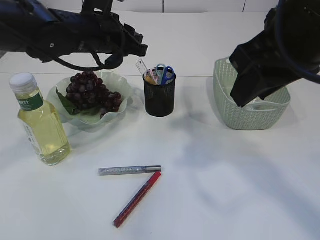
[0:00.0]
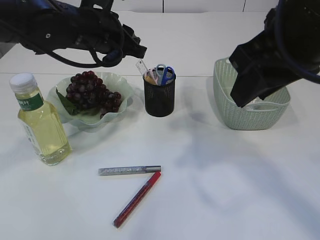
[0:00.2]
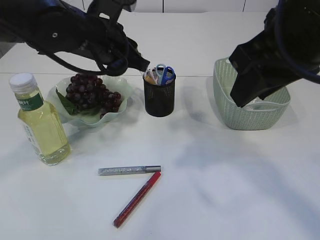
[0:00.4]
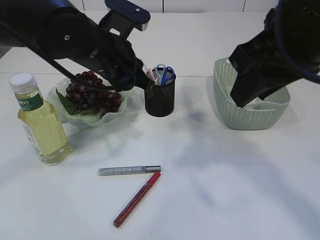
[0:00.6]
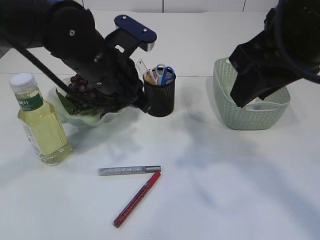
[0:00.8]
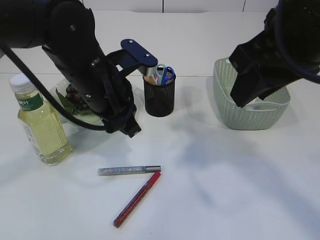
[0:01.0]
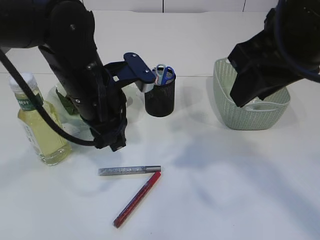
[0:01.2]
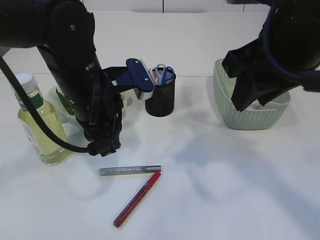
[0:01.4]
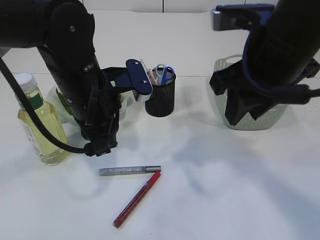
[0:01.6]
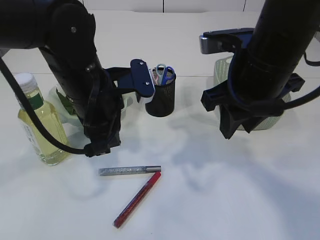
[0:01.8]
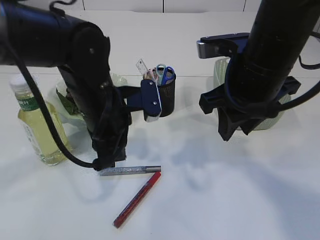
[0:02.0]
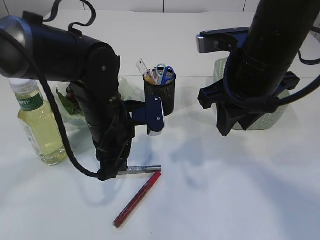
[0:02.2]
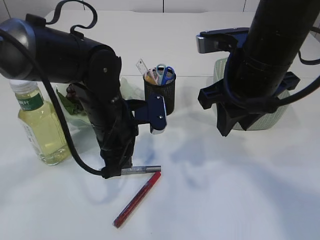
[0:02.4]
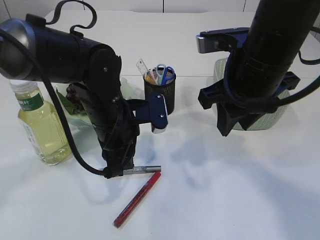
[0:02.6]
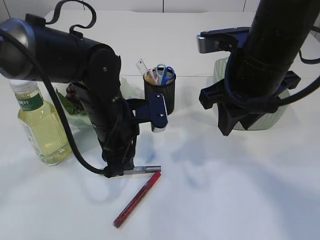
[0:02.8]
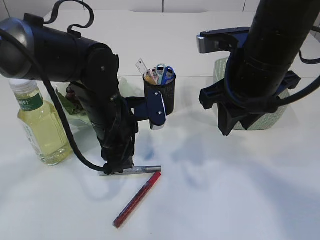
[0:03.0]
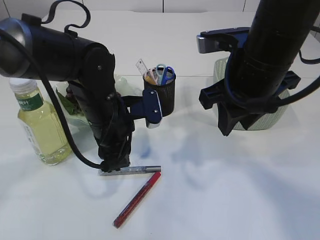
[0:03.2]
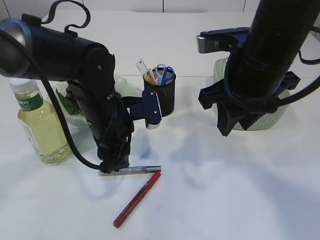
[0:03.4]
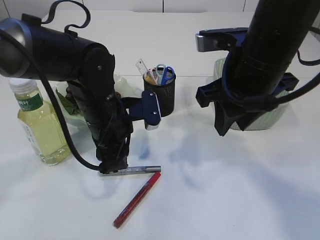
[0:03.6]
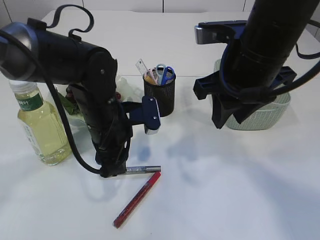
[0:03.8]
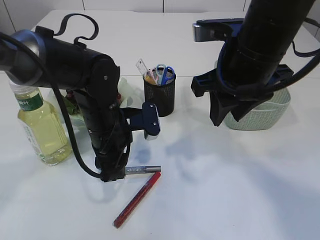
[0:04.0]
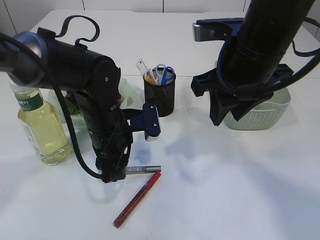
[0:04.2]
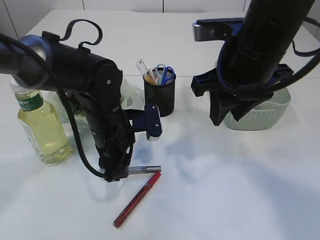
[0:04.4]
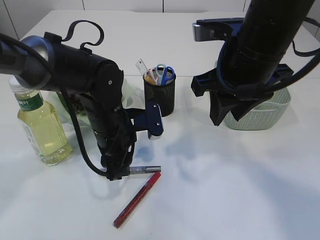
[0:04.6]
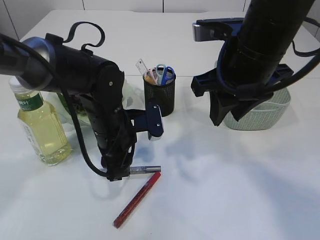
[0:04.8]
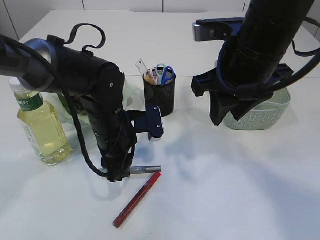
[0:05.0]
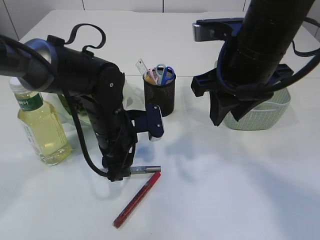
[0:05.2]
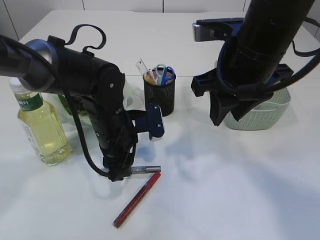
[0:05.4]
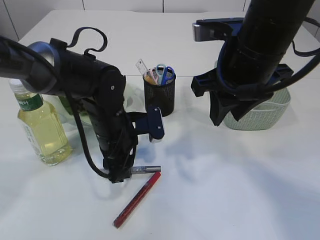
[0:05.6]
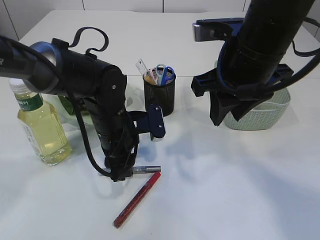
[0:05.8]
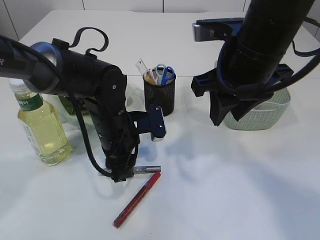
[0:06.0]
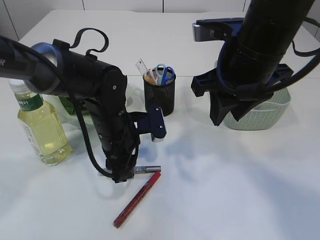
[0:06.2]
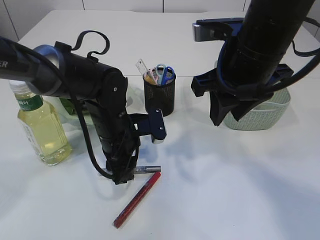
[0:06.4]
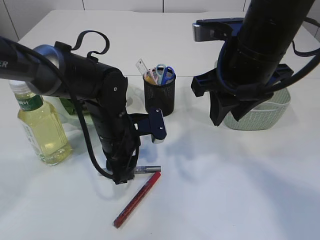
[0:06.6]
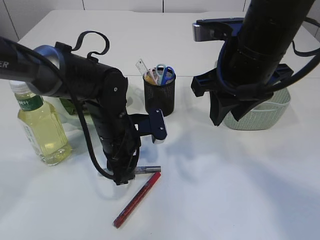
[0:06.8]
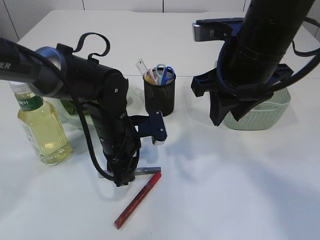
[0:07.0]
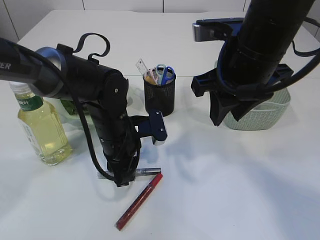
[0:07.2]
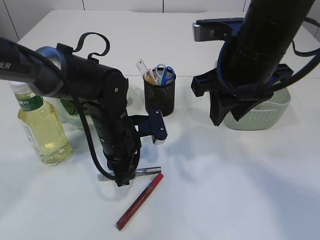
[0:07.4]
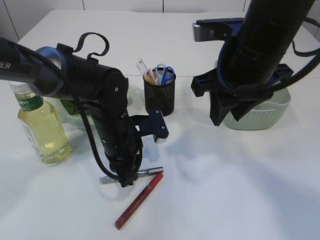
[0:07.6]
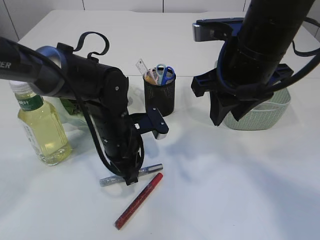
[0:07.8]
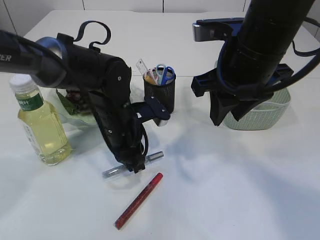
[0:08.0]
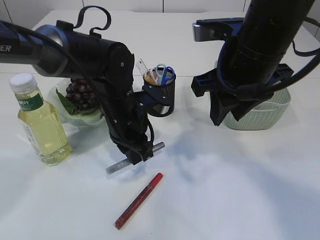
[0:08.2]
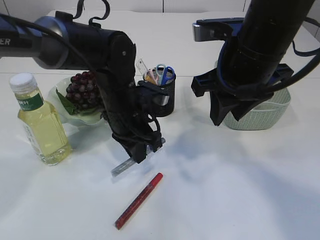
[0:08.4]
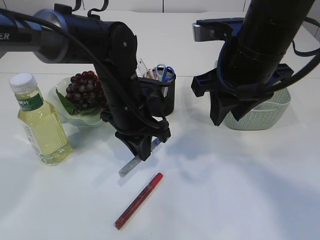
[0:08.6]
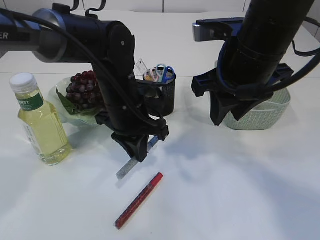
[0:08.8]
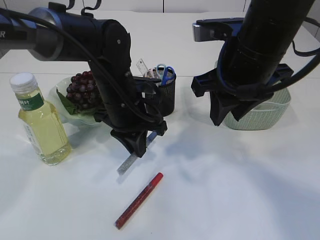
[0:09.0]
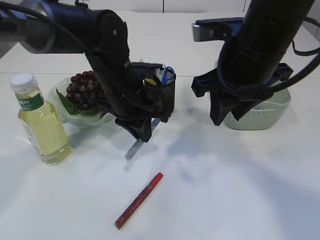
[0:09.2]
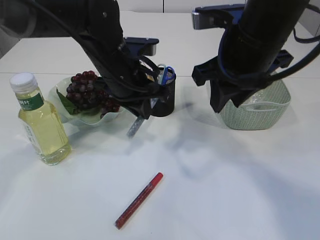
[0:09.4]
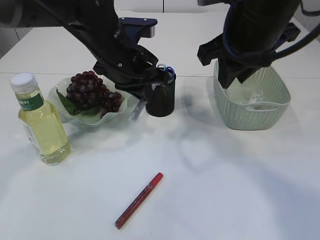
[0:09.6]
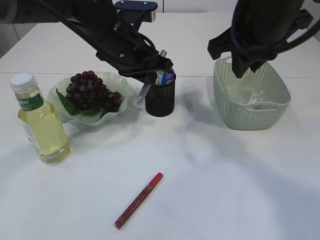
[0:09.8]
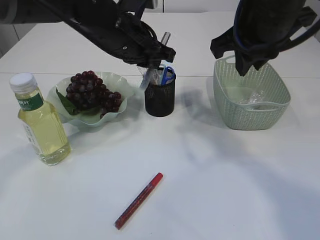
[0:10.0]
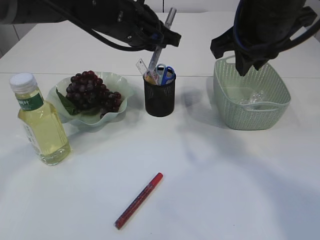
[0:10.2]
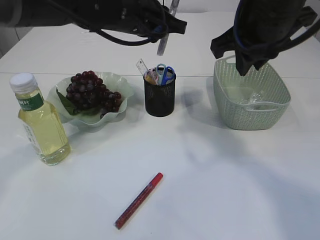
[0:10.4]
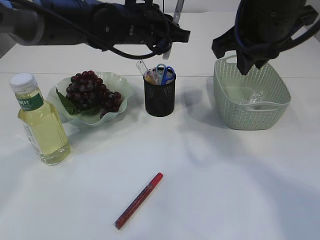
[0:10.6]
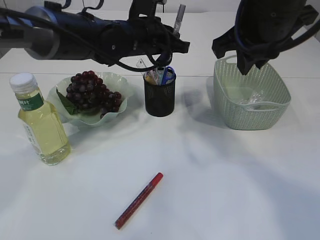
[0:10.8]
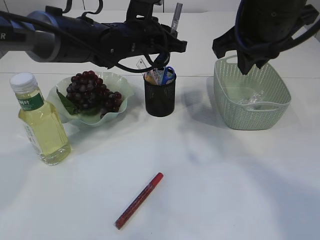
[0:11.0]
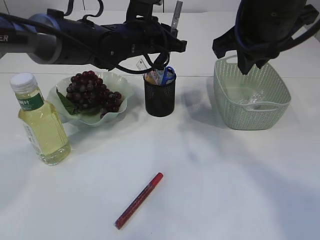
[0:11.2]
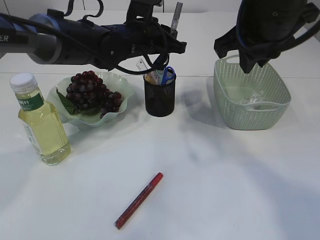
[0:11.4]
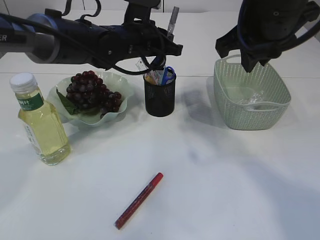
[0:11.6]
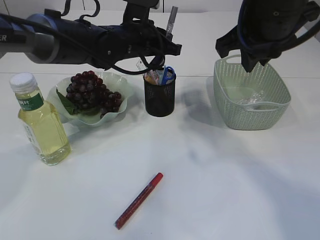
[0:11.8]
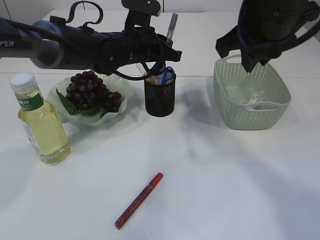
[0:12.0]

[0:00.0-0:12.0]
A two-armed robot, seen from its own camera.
Step, 0:00.4 to 0:09.4: pick up the silver glue.
0:00.0 to 0:01.6: The left gripper moves backward, about 10 cm.
0:01.6 to 0:03.0: The left gripper shifts about 5 cm downward.
0:03.0 to 0:06.0: The grippers move only a little.
0:06.0 to 0:07.6: The left gripper closes its fingers.
0:07.6 to 0:09.0: The left gripper goes about 5 cm upward.
0:09.0 to 0:10.4: The right gripper moves approximately 5 cm. The left gripper is displaced upward and forward by about 15 cm.
0:10.4 to 0:12.0: The left gripper moves downward, some 5 cm.

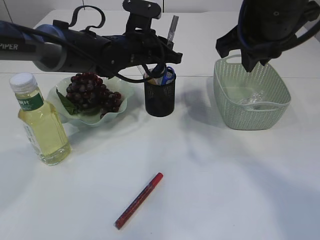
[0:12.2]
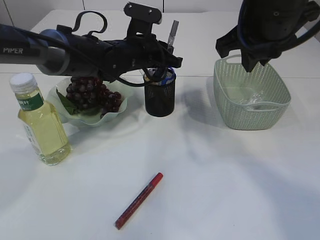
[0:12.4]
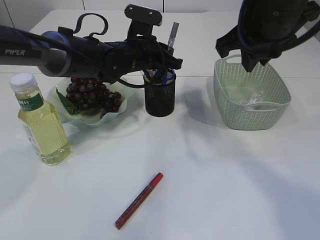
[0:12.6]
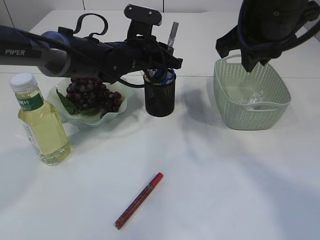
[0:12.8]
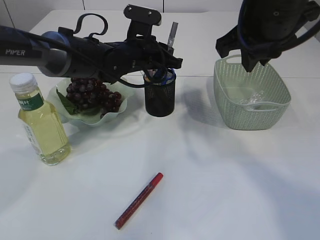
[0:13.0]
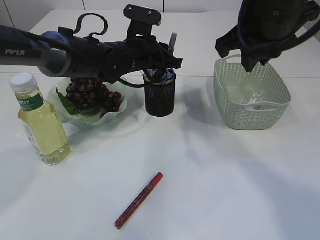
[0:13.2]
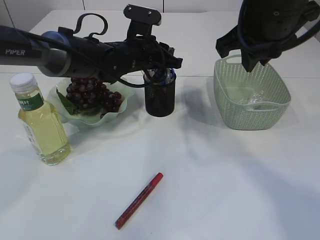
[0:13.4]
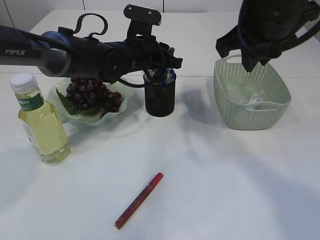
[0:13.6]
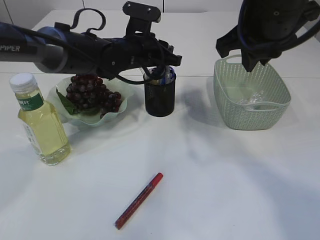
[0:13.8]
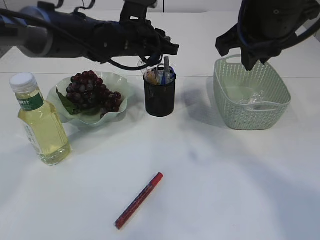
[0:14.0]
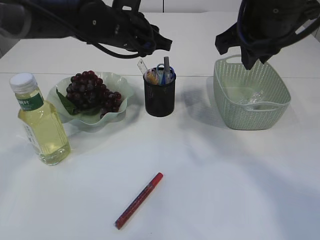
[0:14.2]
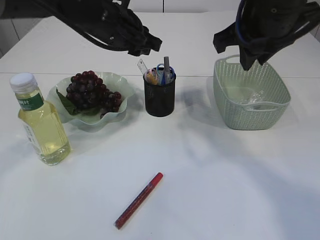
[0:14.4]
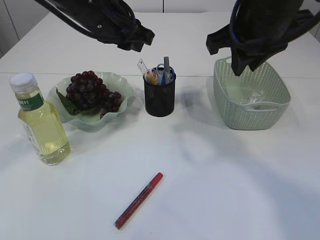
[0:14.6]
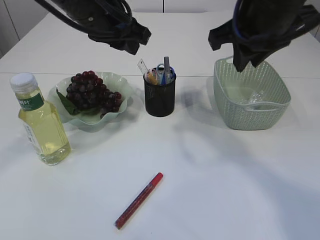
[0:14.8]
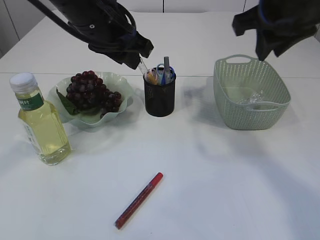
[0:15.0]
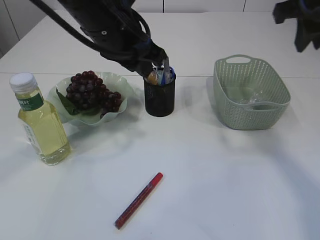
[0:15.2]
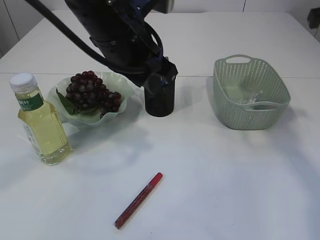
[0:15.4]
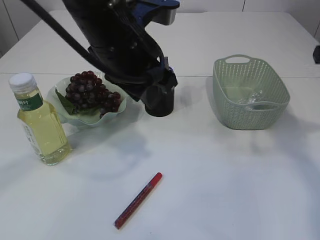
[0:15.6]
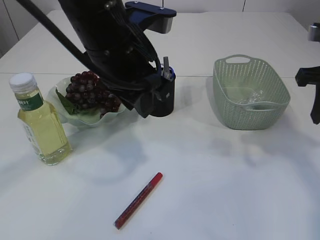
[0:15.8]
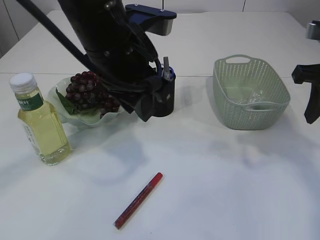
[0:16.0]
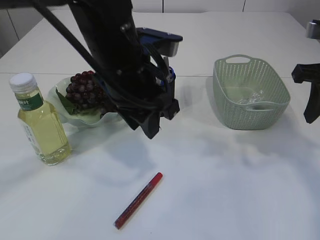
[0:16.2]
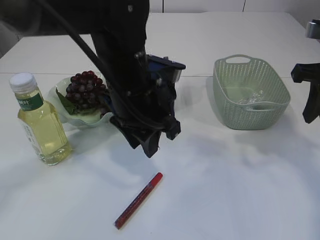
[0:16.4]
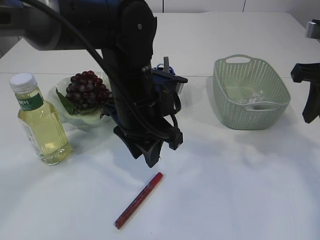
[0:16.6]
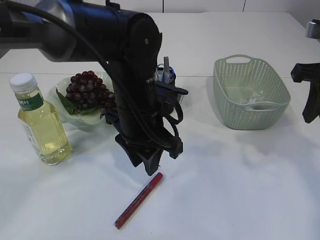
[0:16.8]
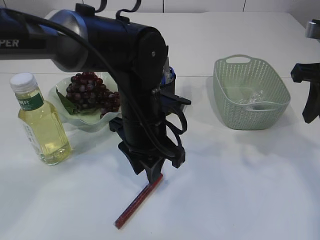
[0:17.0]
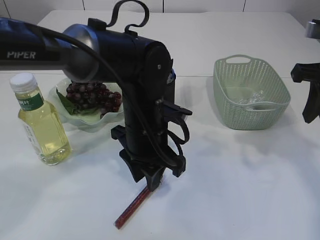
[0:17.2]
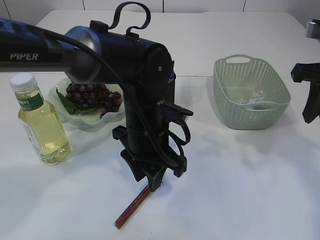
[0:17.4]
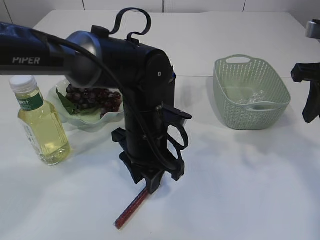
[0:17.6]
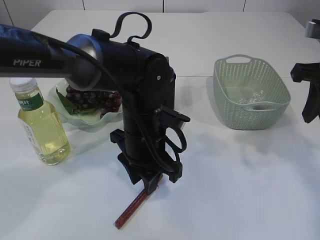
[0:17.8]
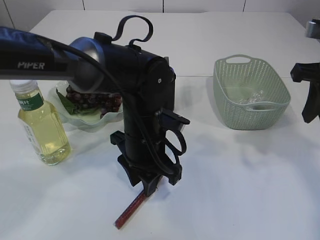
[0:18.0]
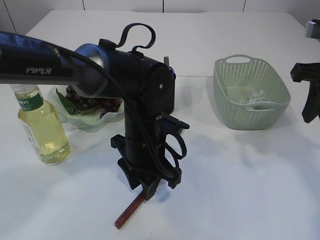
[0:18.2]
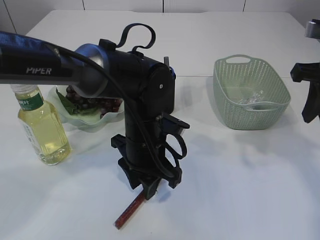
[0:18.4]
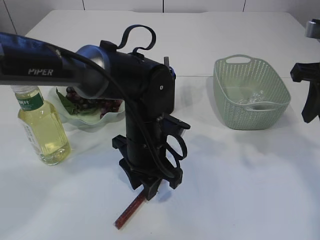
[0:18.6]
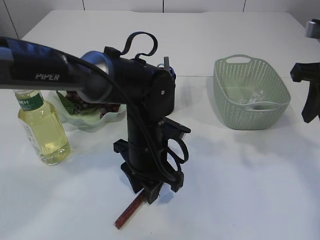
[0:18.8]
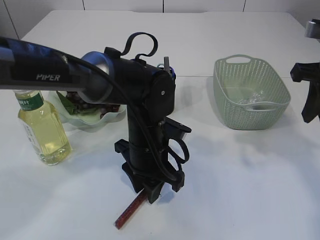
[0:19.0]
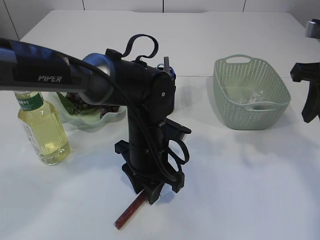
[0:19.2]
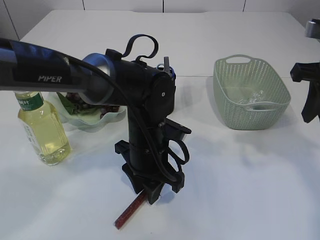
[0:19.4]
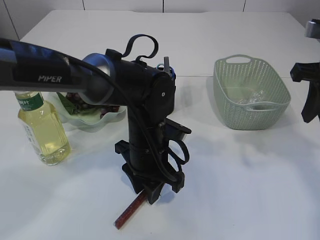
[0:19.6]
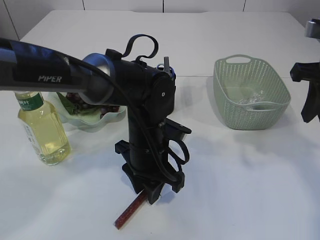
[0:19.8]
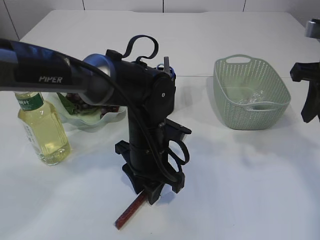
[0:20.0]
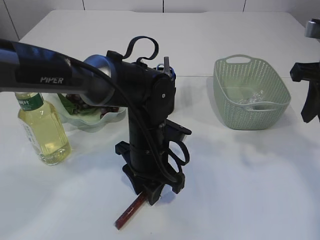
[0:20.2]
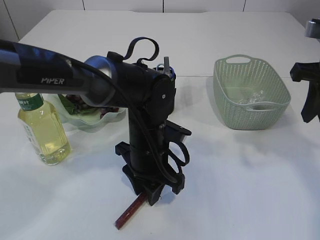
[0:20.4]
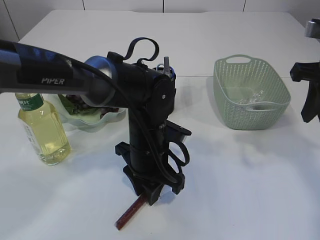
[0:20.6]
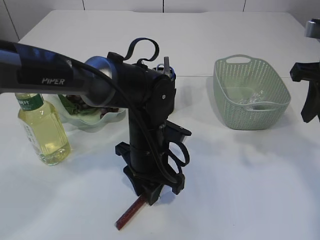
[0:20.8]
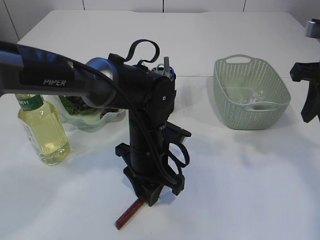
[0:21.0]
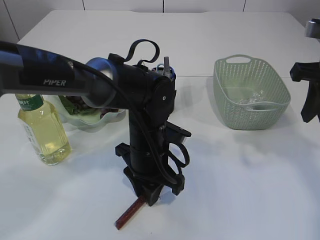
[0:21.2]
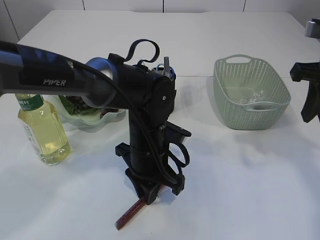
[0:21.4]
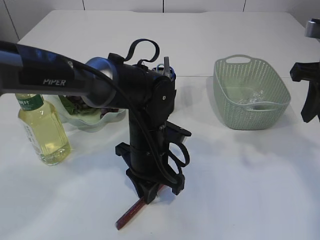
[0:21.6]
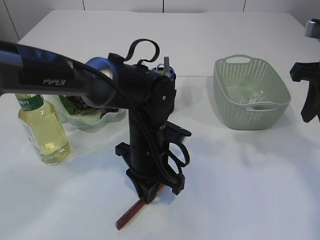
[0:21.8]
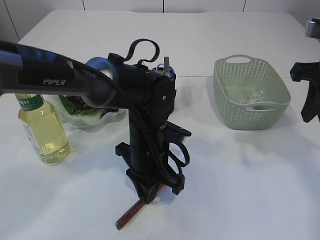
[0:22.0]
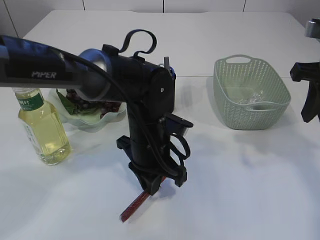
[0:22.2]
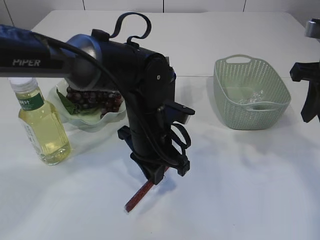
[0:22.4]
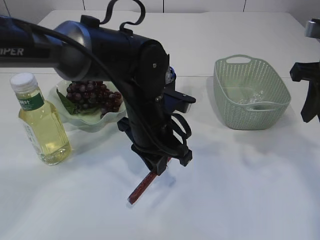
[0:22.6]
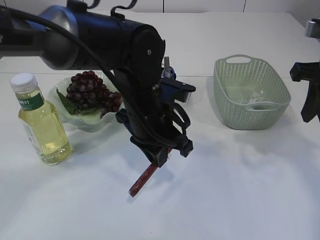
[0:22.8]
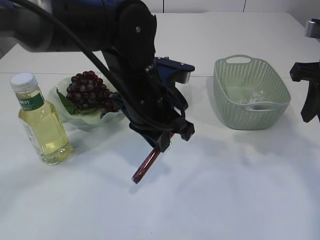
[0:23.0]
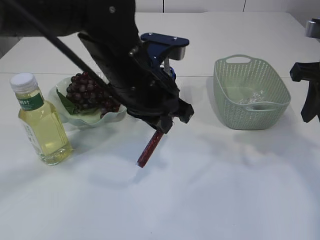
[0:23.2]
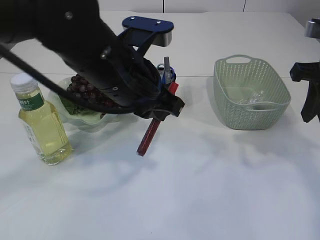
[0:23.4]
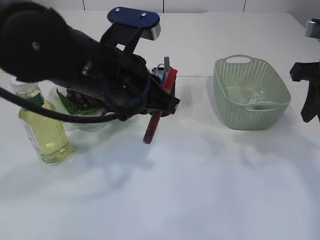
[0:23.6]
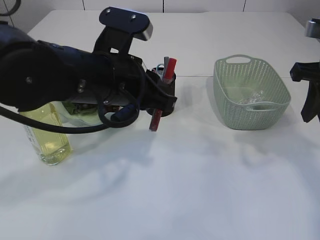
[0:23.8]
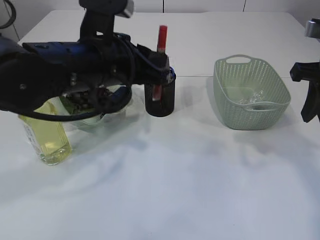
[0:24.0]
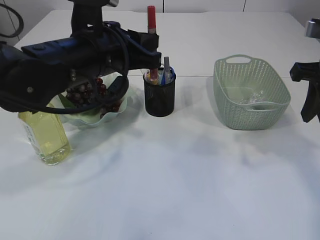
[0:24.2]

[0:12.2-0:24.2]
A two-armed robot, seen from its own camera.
Step, 0:12.2 to 0:14.6: place the silver glue into the pen holder.
Step, 0:14.8 to 0:23.4: pick up the red glue.
0:12.2 to 0:13.8: Neither gripper changes place.
0:13.8 to 0:15.2: The left gripper goes roughly 15 cm backward and upward, while the right gripper moves to the right, roughly 10 cm.
0:15.2 to 0:16.6: Both grippers travel together downward, roughly 10 cm.
0:16.6 to 0:18.2: The left gripper moves downward, approximately 10 cm.
0:18.2 to 0:19.8: The grippers stay close to where they were, moving slightly.
0:19.8 to 0:21.2: Neither gripper changes place.
0:21.2 to 0:22.6: The left gripper is displaced upward by roughly 5 cm.
0:22.6 to 0:24.2: The left gripper moves upward and to the left, roughly 10 cm.
